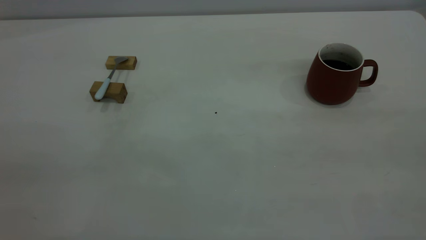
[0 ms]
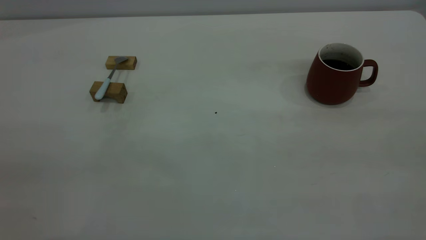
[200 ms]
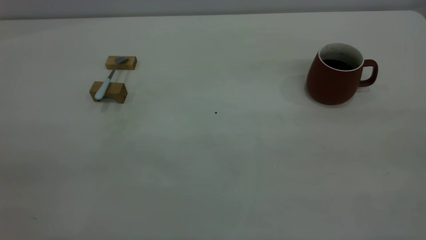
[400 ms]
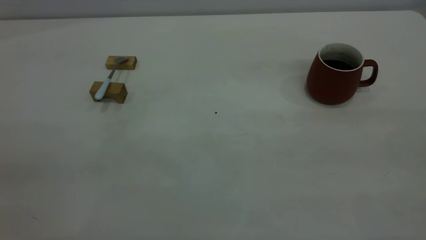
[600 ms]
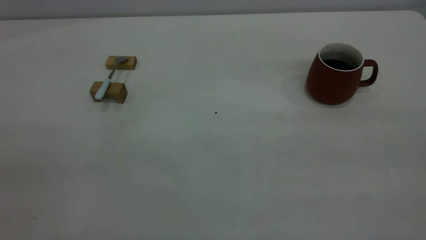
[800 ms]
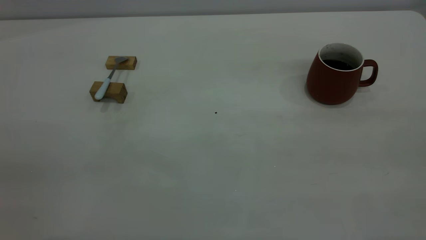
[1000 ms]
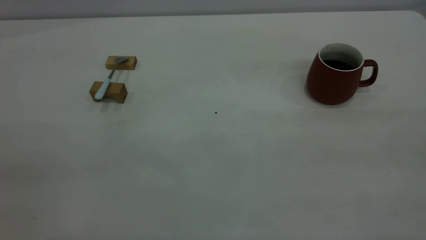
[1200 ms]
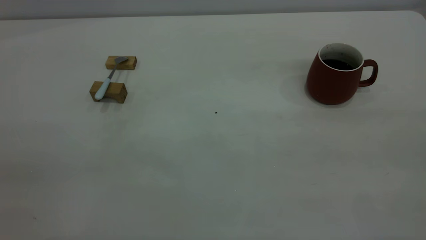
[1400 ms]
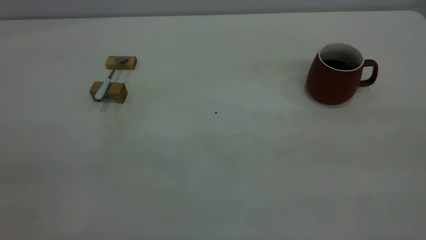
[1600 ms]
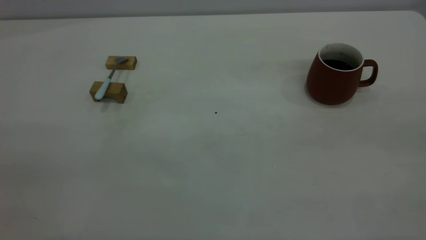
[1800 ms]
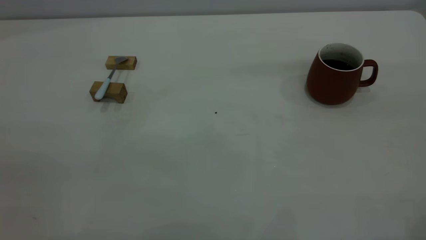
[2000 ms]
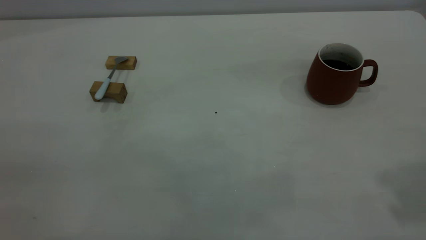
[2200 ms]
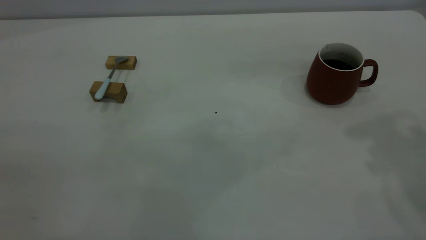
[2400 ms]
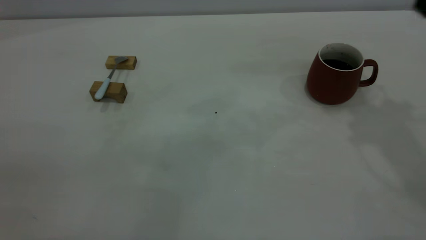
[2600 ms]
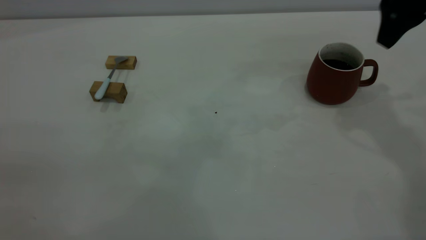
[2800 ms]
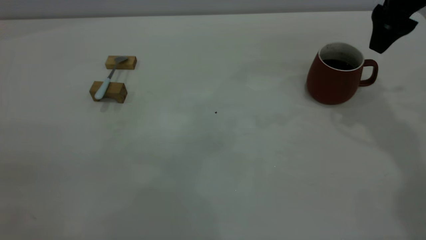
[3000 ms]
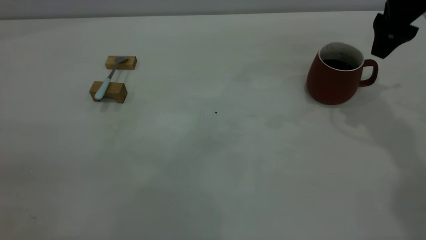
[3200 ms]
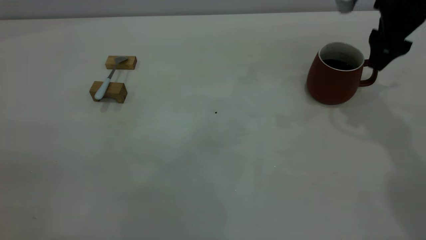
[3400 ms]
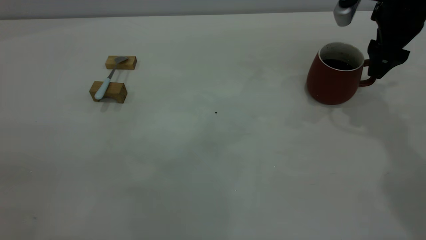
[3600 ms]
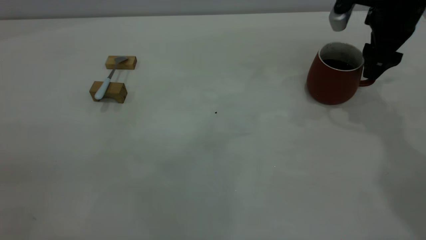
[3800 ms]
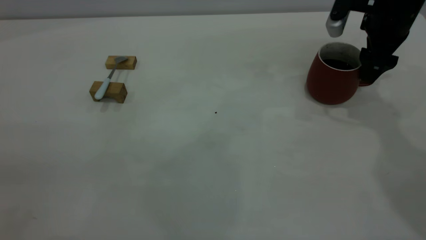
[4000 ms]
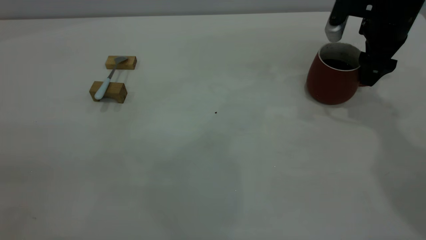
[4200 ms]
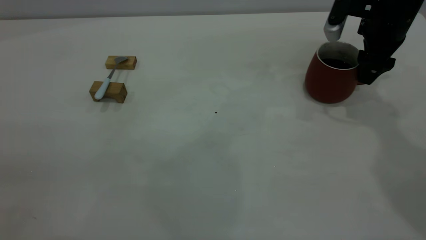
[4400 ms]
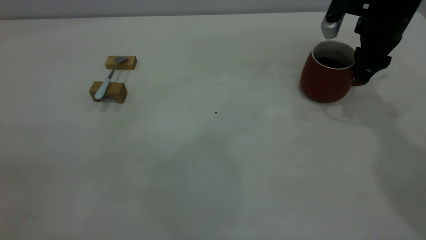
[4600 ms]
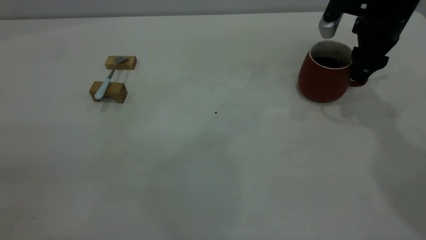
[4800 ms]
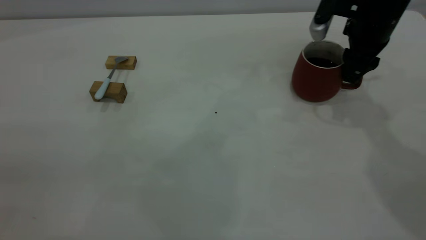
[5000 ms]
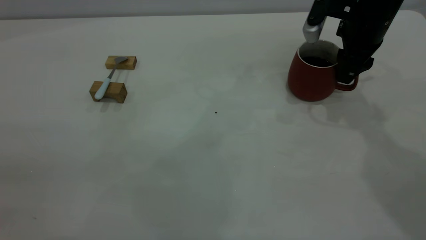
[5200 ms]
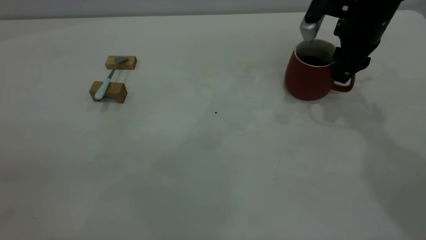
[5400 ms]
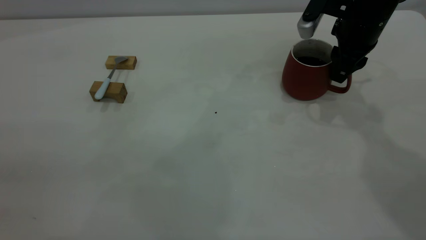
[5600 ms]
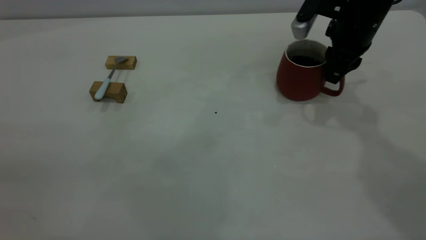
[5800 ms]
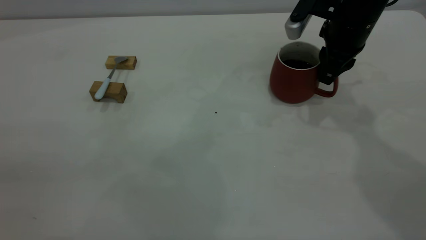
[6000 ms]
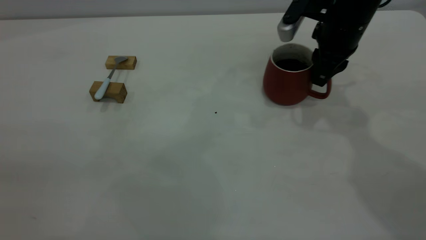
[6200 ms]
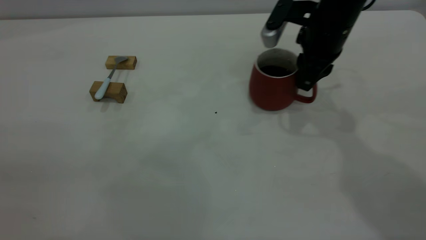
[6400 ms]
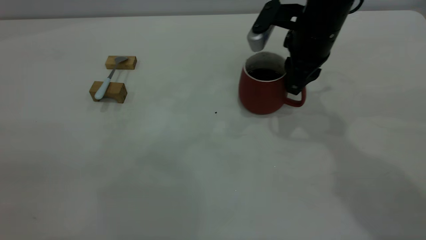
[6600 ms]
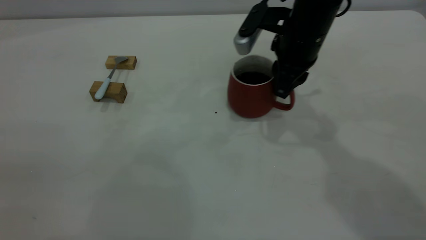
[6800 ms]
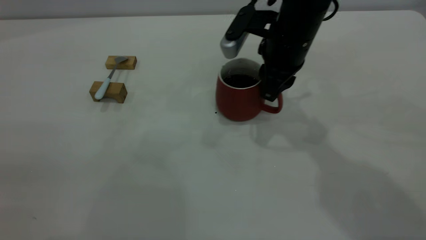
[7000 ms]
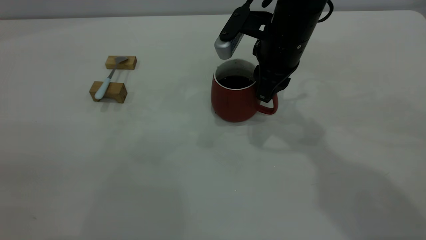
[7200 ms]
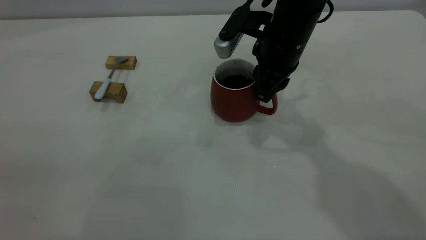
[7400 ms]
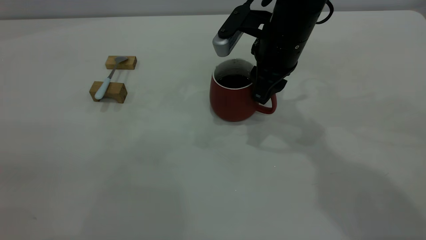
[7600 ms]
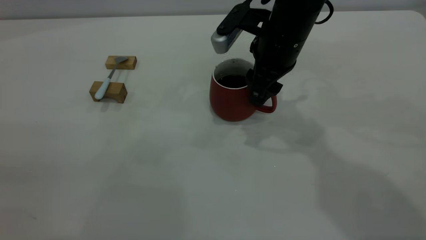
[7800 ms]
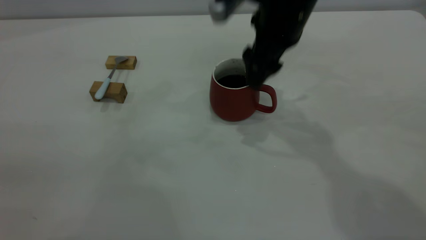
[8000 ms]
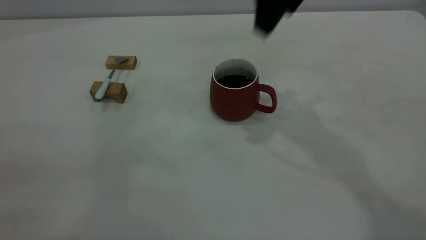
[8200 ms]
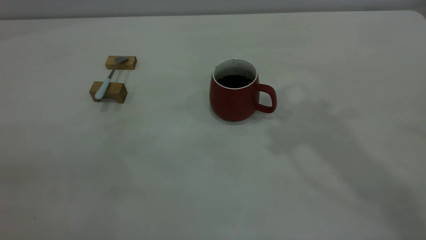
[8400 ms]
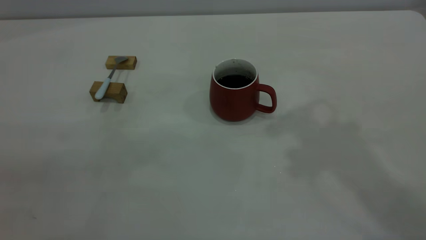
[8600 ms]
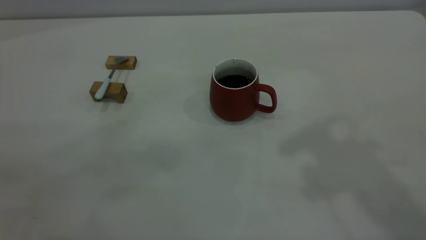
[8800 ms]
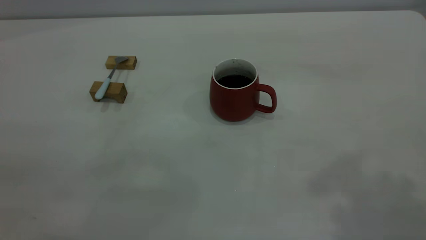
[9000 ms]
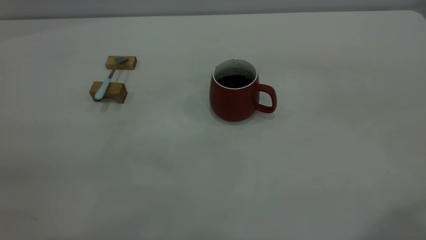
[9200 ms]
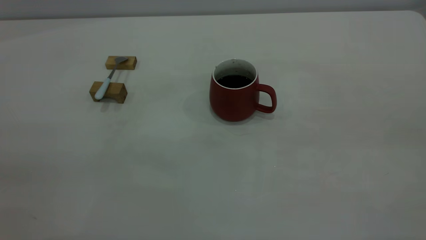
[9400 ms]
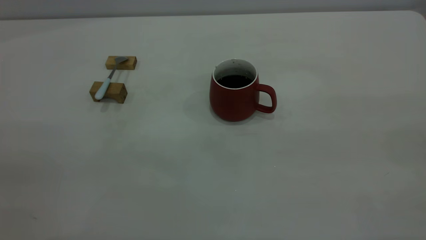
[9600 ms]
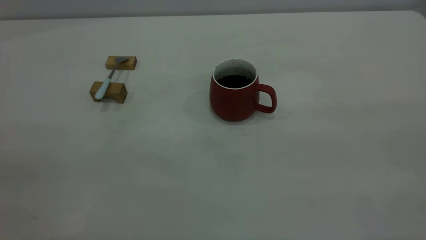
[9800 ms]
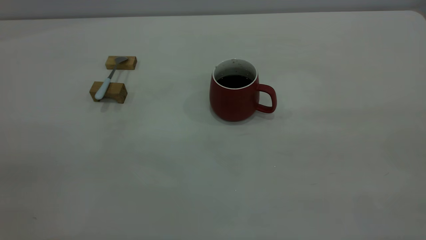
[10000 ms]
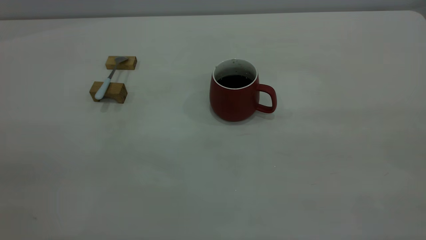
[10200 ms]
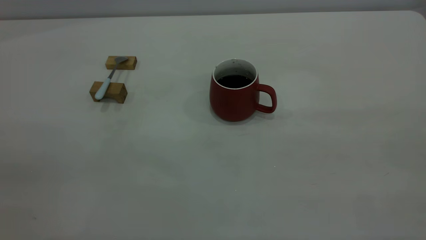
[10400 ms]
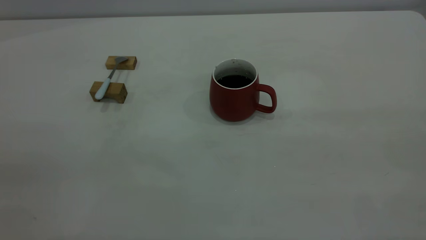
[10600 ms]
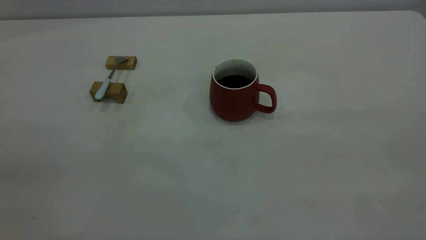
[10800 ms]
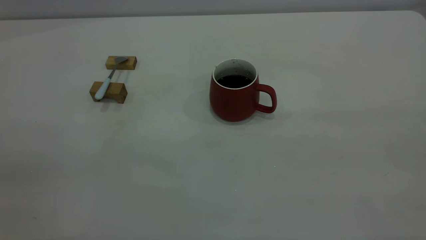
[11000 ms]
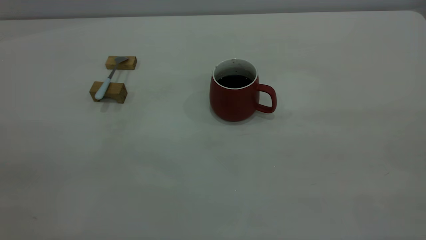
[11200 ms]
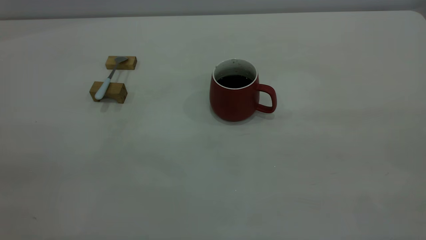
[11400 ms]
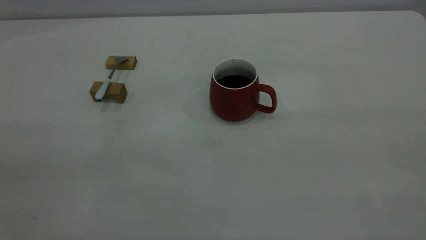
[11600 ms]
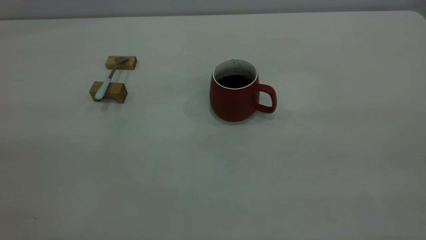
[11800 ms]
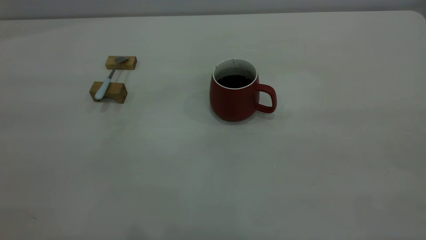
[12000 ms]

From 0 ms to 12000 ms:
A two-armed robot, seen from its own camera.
Step, from 0 ms to 8000 ms: Move the cup with coffee to the center of view.
From 1600 ms to 3000 ms: The right gripper travels forward by approximately 40 cm.
From 3000 ms to 4400 ms: The right gripper shifts roughly 10 cm downward.
From 4400 ms to 6000 ms: The right gripper heads to the left, covering some 5 cm, and closes up.
From 6000 ms to 7600 ms: The right gripper shifts approximately 10 cm to the left.
From 7600 ms to 9000 ms: The right gripper shifts some 40 cm upward, backward and to the right, and opens.

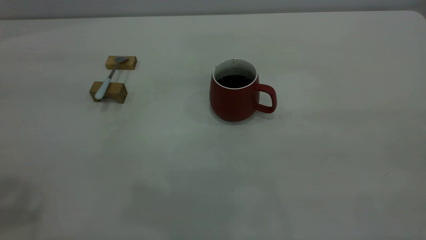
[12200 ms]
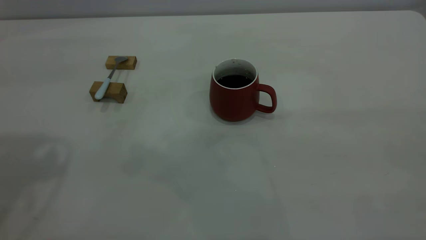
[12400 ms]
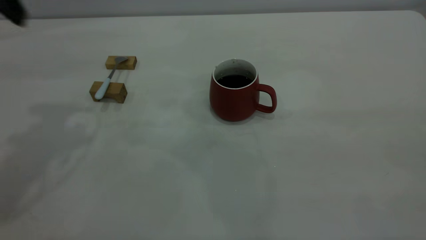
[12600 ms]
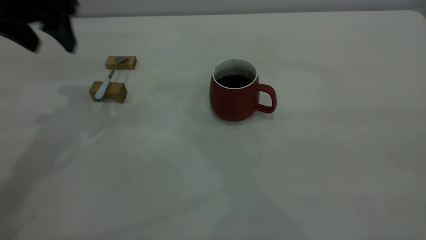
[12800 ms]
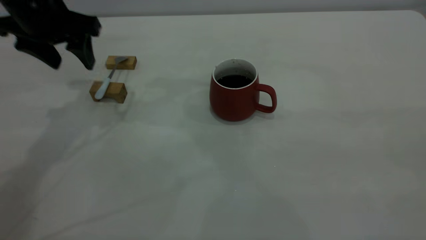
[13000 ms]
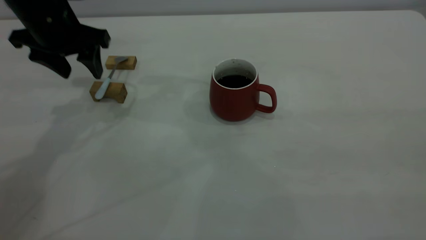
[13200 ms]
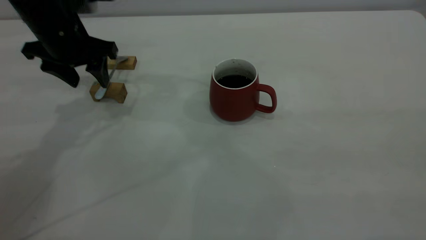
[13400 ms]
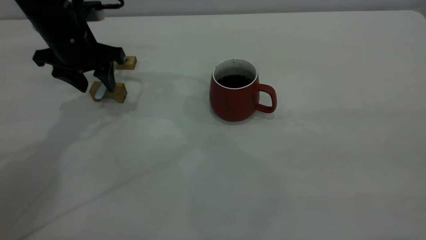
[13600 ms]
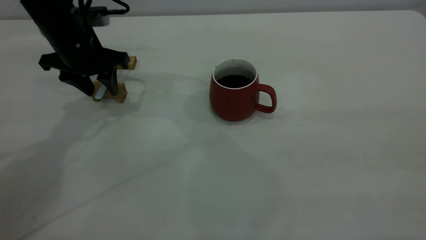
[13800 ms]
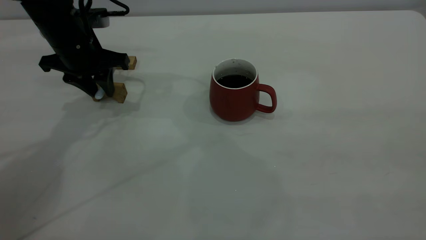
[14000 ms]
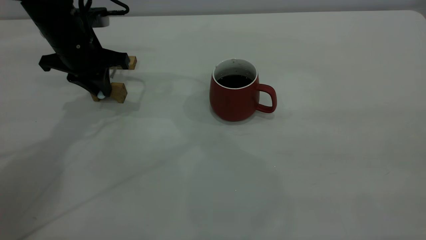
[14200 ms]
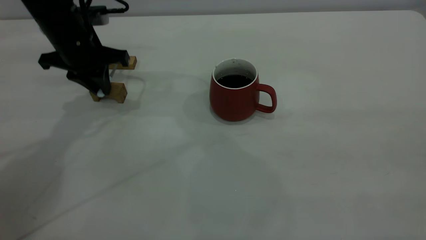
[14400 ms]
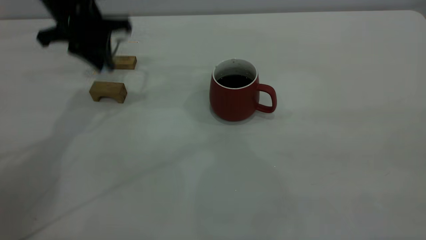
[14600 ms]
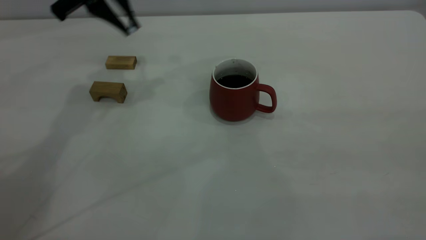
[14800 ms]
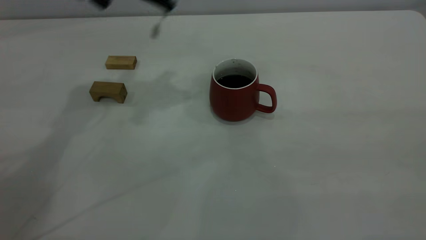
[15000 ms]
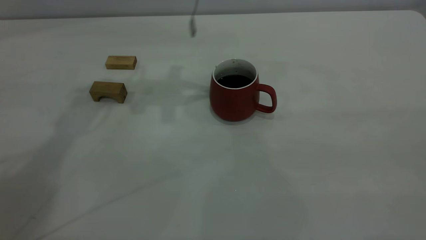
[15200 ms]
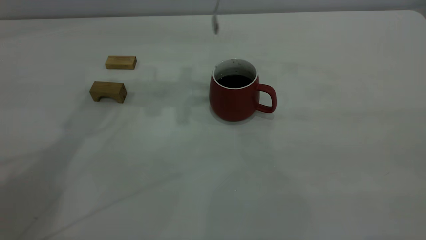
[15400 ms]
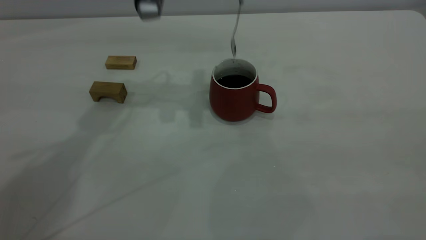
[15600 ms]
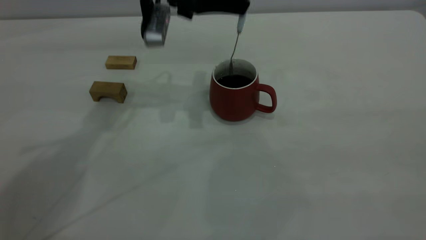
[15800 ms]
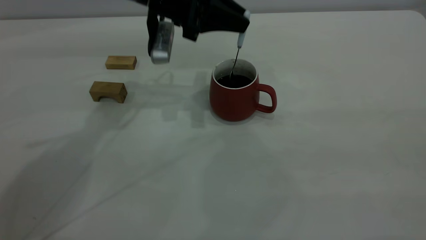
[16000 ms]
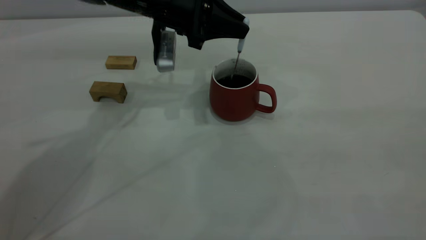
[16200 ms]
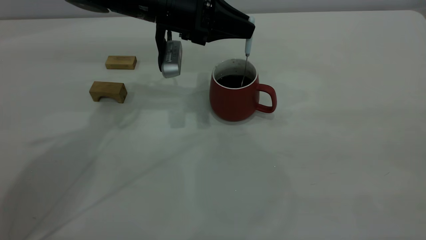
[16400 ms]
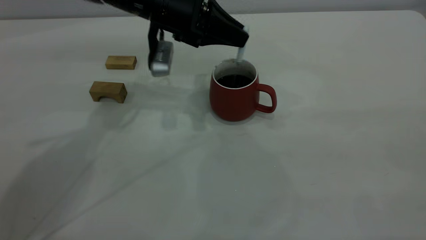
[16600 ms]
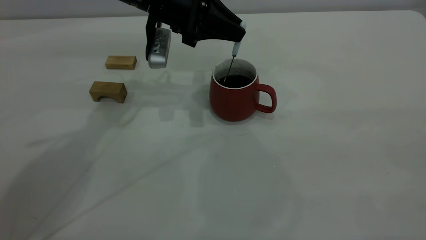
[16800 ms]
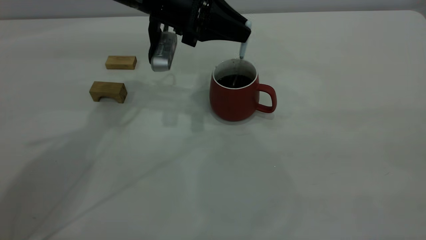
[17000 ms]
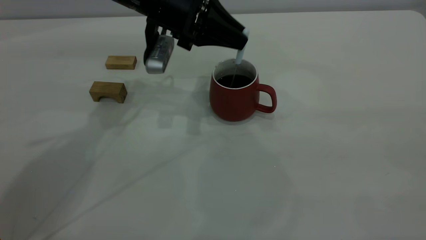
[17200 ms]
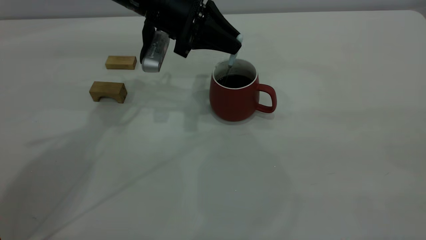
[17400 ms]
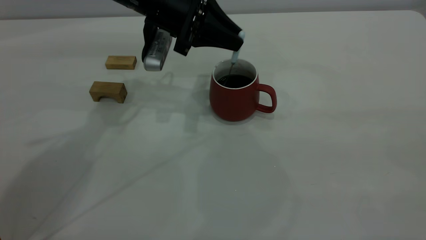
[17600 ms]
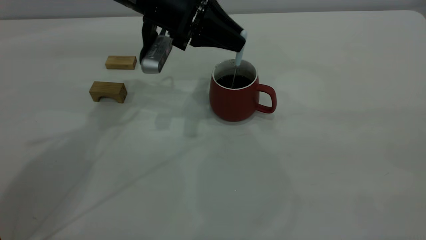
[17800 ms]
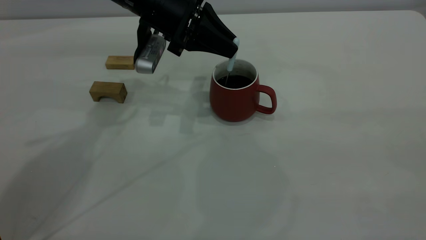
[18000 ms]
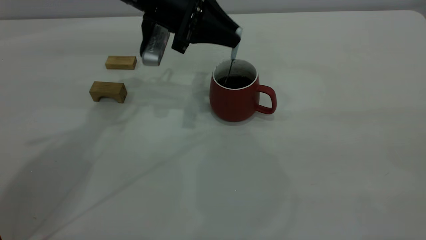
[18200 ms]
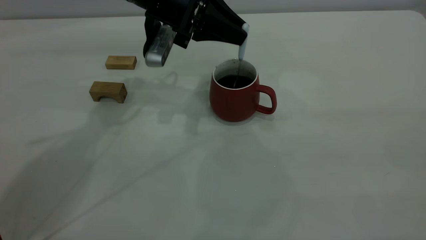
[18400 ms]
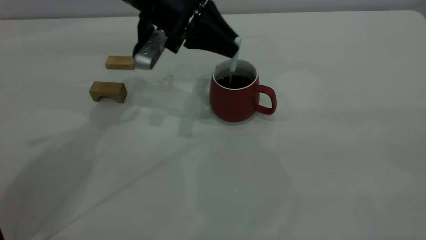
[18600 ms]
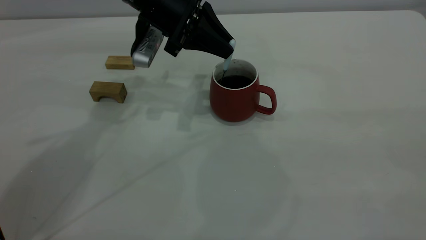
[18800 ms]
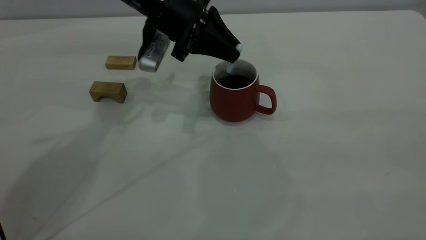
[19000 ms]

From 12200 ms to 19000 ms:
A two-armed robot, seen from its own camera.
Step, from 12200 ms to 14600 ms: Pick up the spoon.
From 12200 ms to 13600 ms: The left gripper heads downward and forward, covering approximately 35 cm.
From 13600 ms to 15000 ms: The left gripper heads upward and to the right, covering roughly 15 cm, and closes up.
From 15000 ms to 16200 ms: The left gripper is displaced downward and to the right by about 15 cm.
From 16200 ms to 19000 ms: There are only small adjustments of the grippers.
